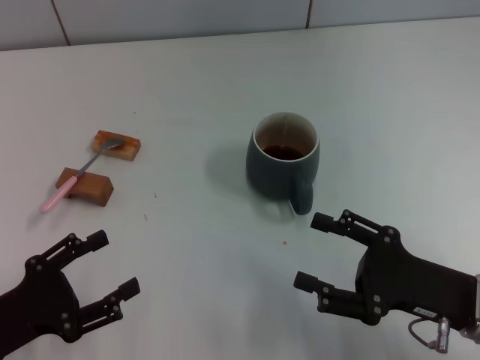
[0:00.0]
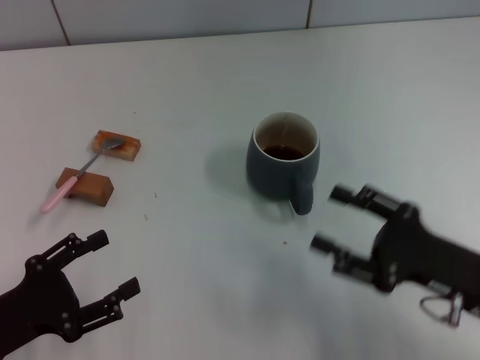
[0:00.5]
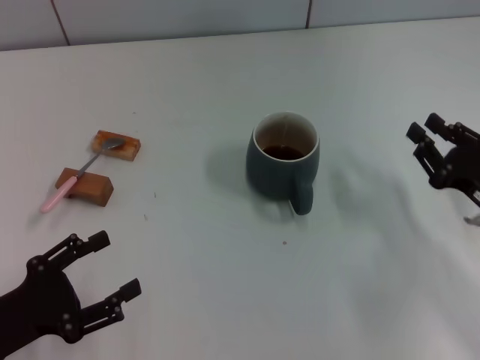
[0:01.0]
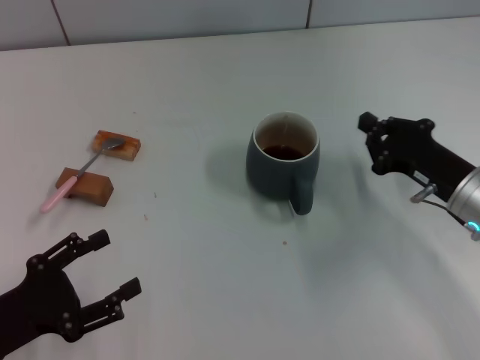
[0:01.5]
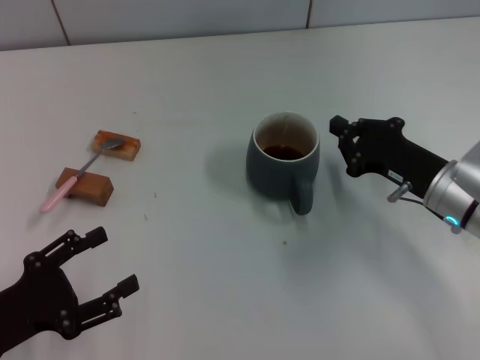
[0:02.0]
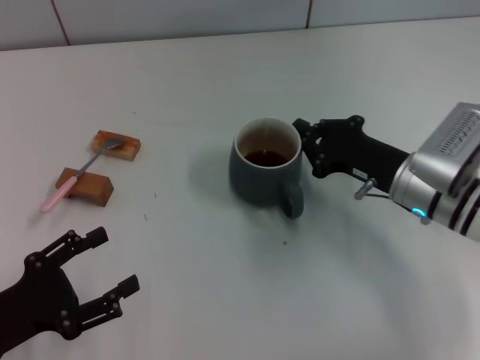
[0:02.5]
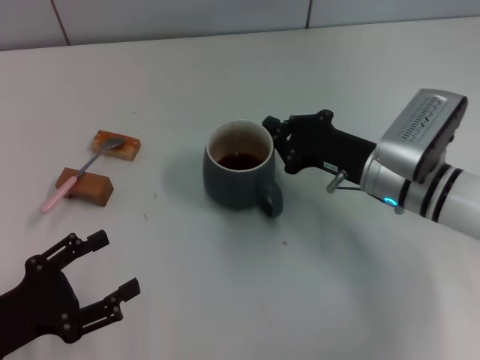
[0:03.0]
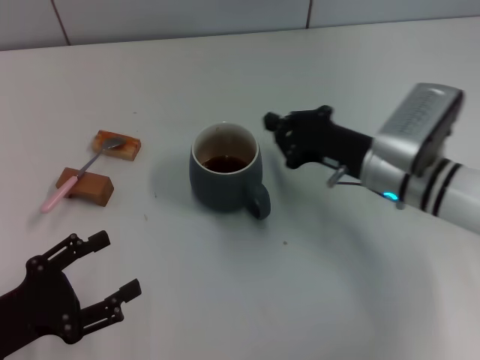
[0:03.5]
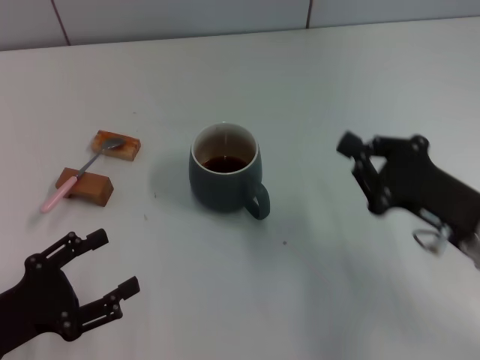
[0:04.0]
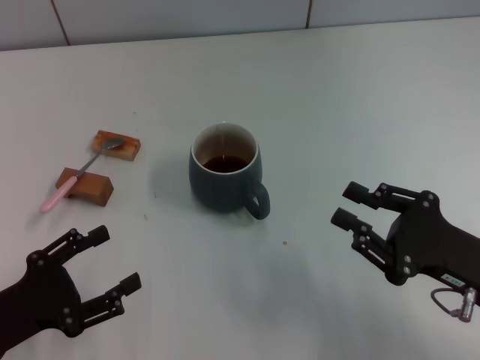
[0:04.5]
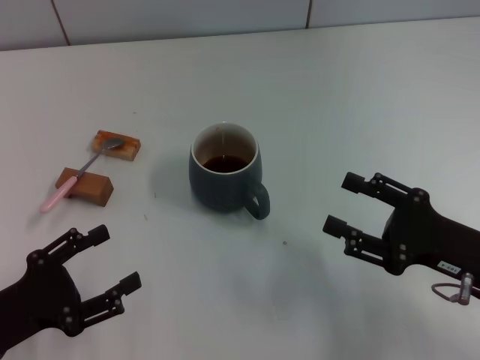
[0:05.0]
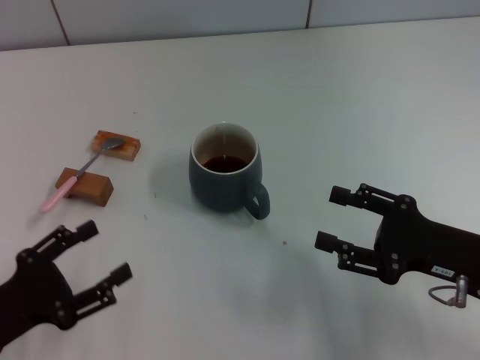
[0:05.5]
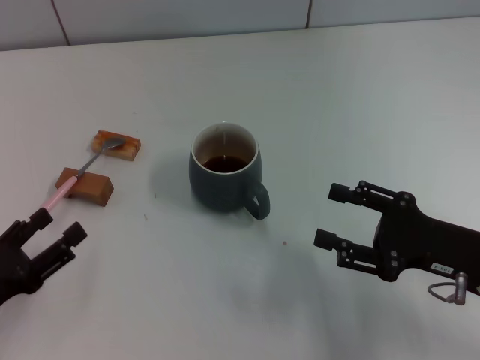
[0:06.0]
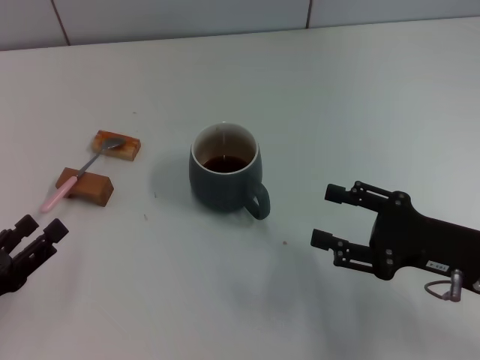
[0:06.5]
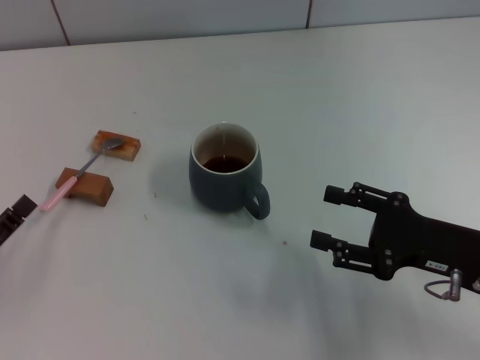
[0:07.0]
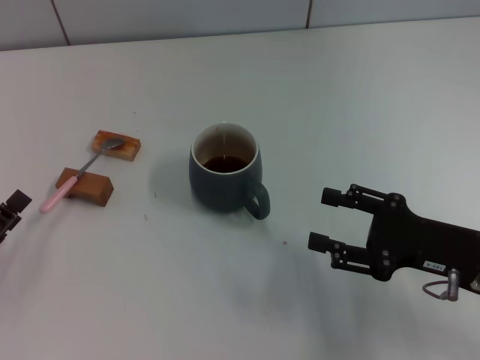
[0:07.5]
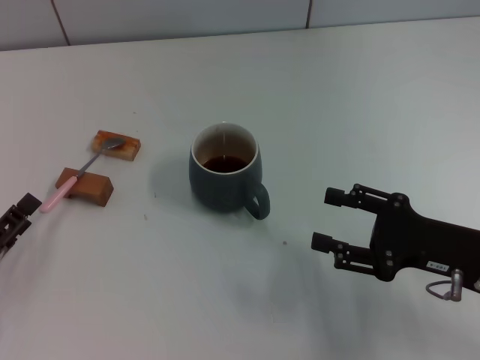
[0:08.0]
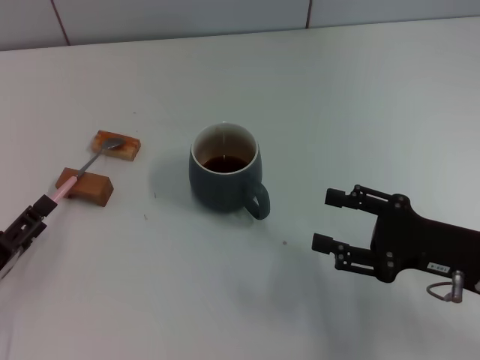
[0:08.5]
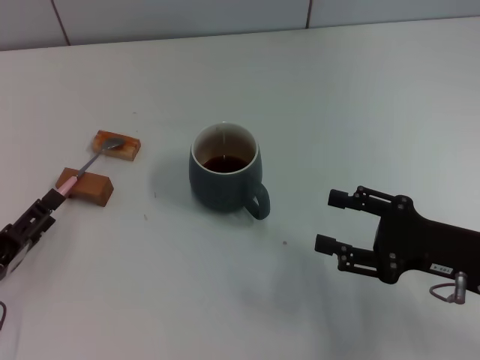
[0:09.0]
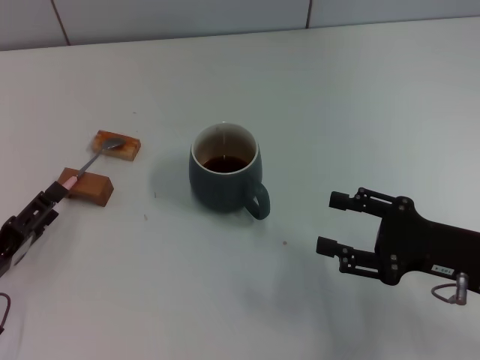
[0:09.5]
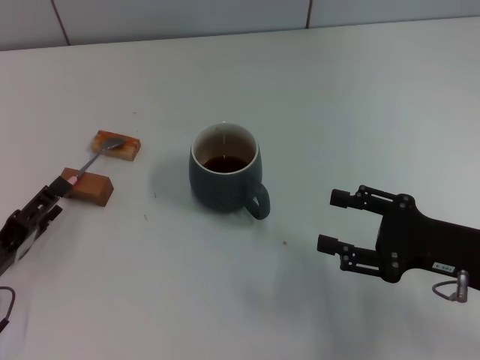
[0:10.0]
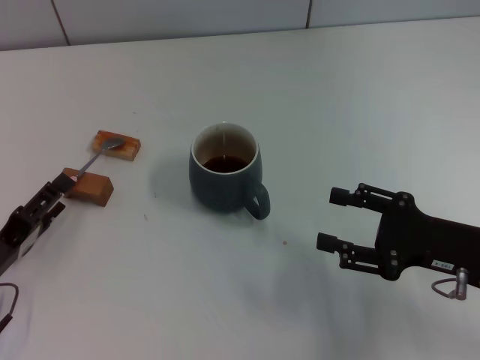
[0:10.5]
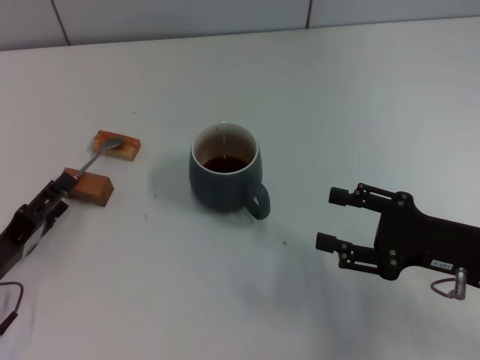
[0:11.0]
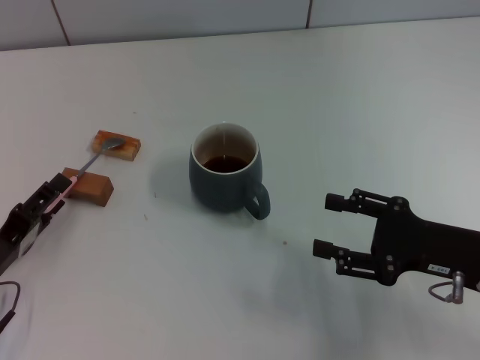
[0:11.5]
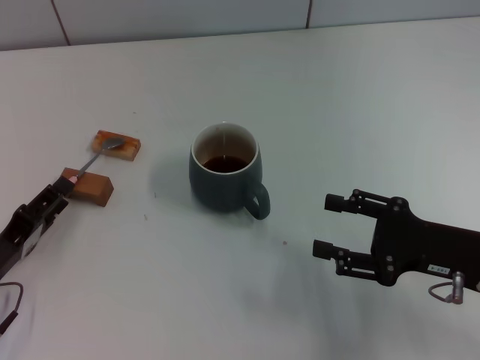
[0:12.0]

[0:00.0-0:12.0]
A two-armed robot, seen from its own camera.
Task of the whole recording: Move the grey cup to the center, lift the pink spoon, stir it three times in the cup, and put the spoon into the cup.
Step, 0:00.0 to 0:03.5: Move the cup with coffee to the center of view with the right gripper.
0:00.0 to 0:02.0: The right gripper heads forward, covering some 10 cm, and closes up.
0:02.0 to 0:04.0: The right gripper is displaced backward by some 5 cm.
0:04.0 to 0:06.0: The right gripper opens up.
0:08.0 to 0:10.0: There are only small adjustments of the grippers.
0:10.0 to 0:12.0: The left gripper closes up.

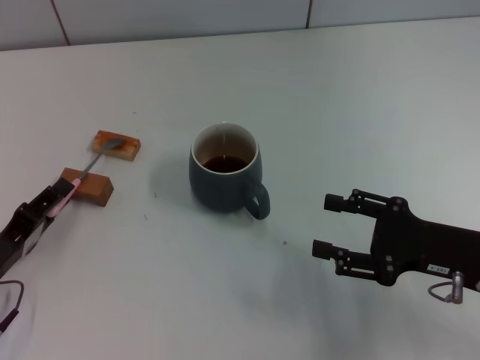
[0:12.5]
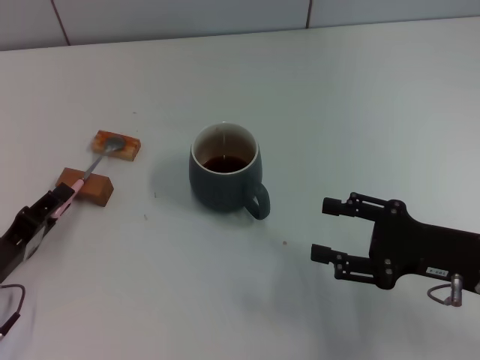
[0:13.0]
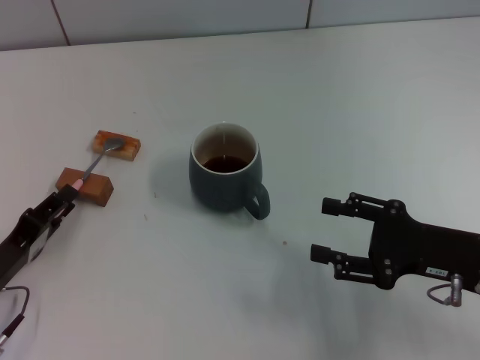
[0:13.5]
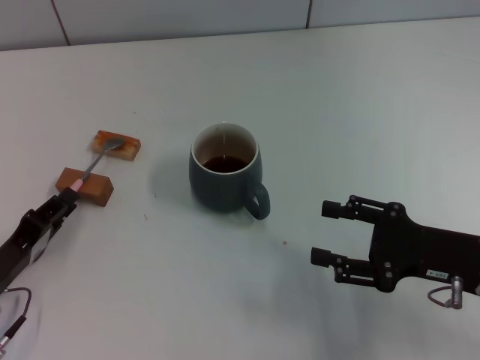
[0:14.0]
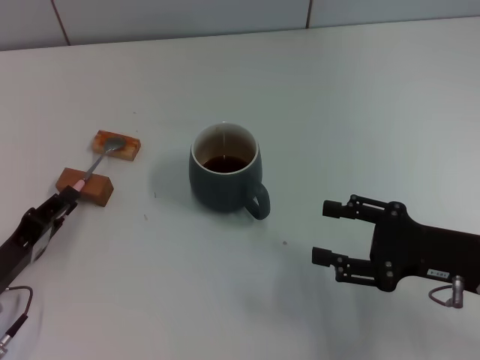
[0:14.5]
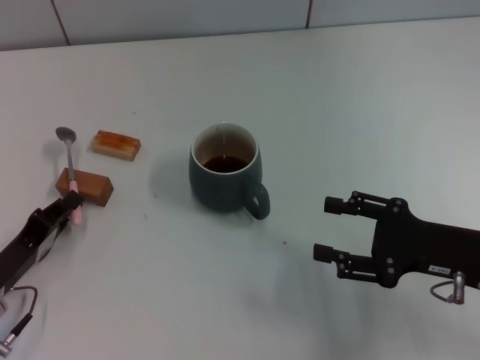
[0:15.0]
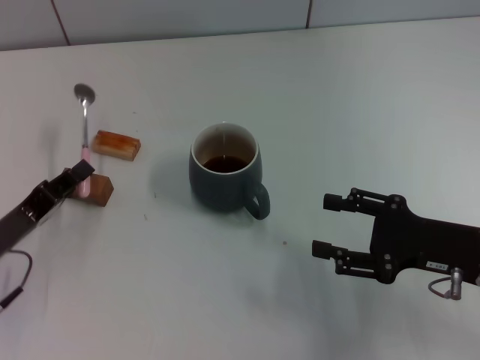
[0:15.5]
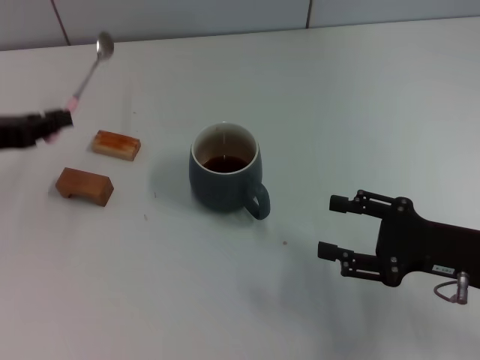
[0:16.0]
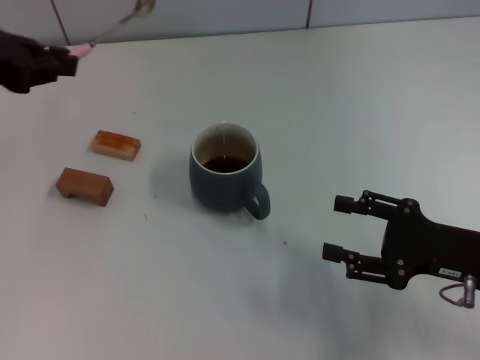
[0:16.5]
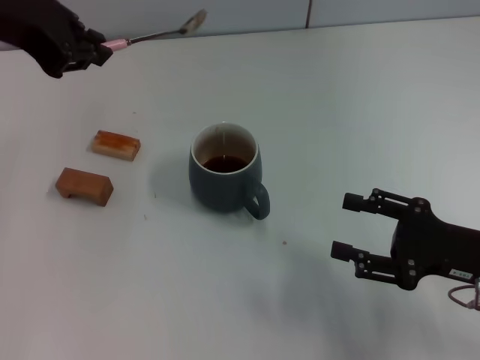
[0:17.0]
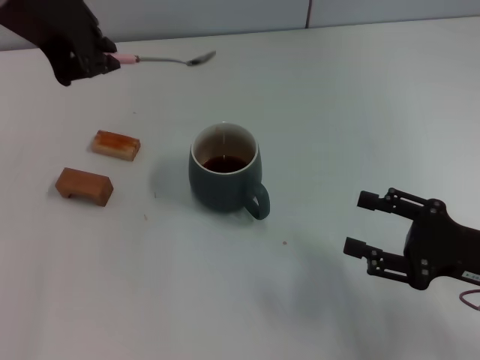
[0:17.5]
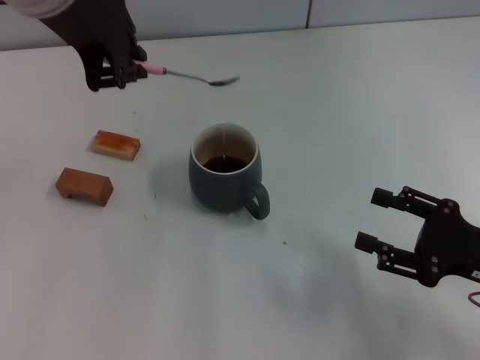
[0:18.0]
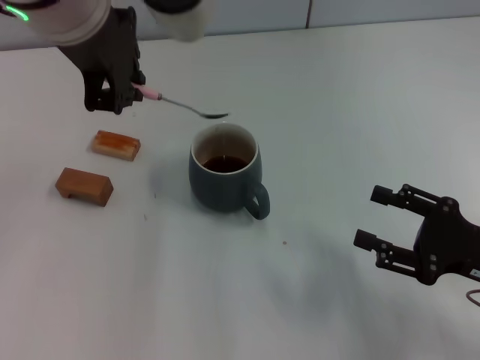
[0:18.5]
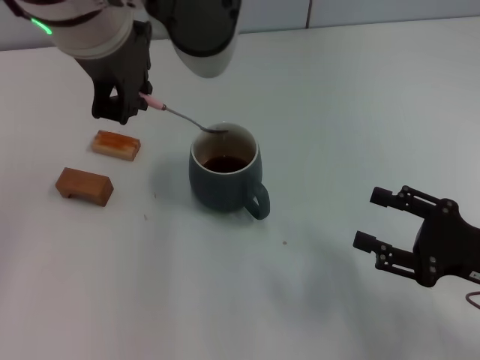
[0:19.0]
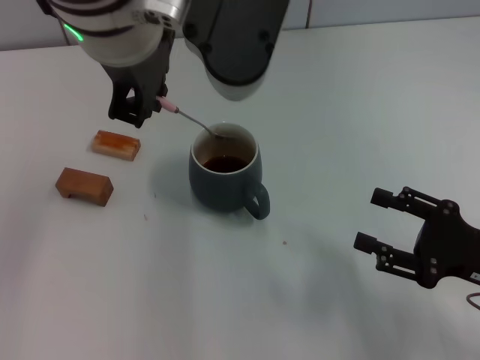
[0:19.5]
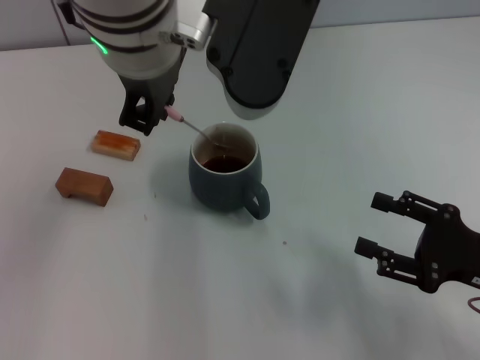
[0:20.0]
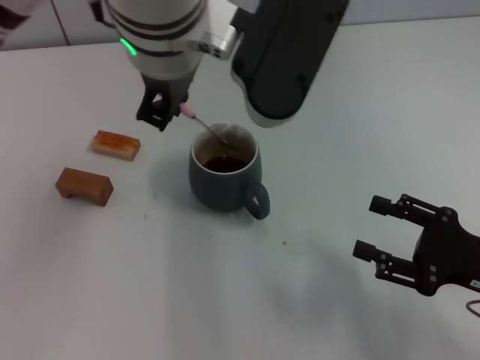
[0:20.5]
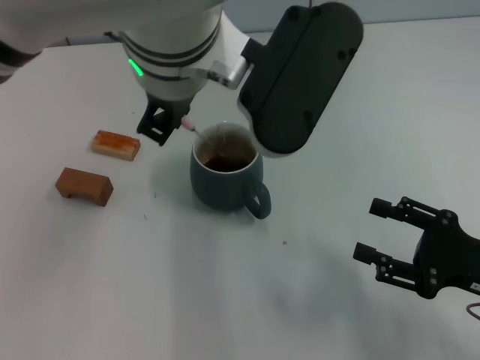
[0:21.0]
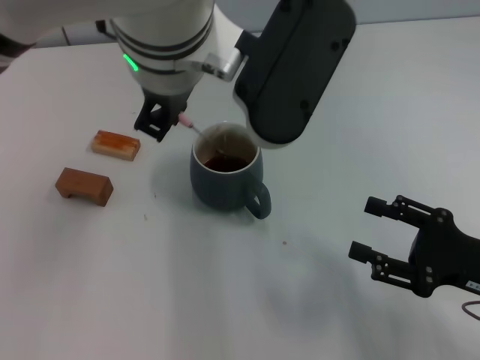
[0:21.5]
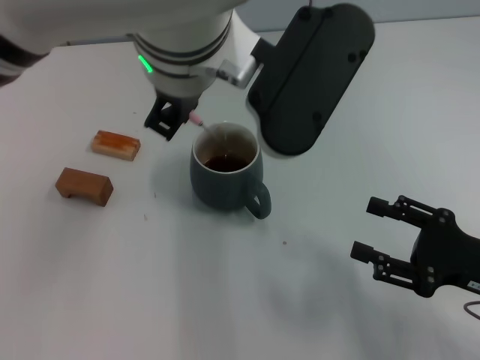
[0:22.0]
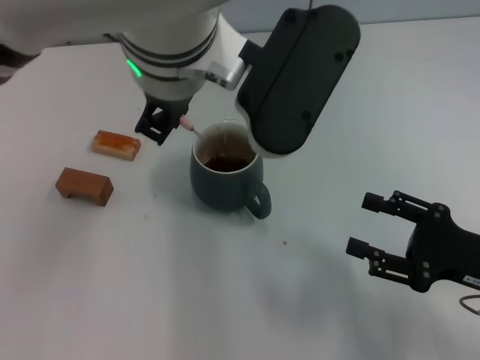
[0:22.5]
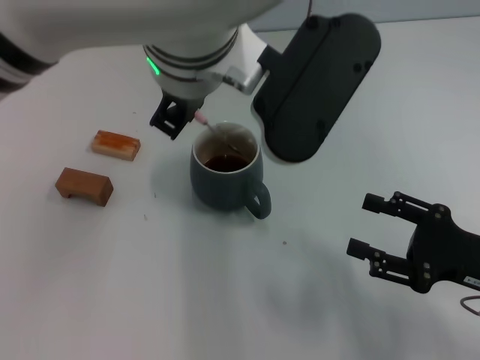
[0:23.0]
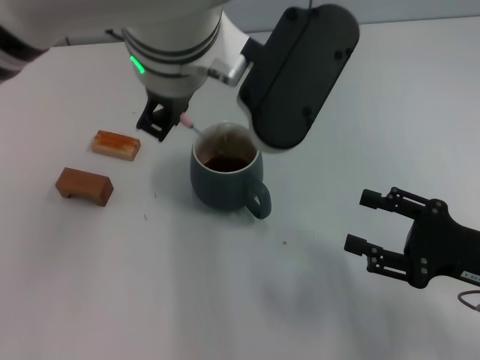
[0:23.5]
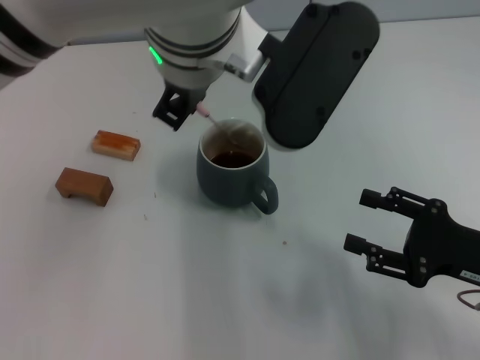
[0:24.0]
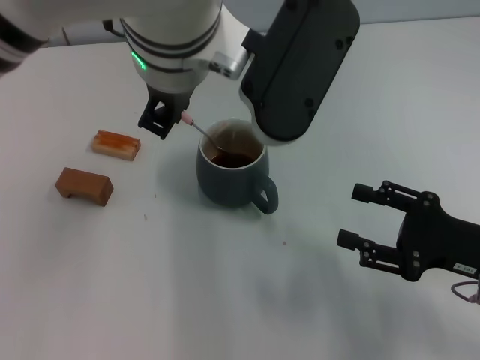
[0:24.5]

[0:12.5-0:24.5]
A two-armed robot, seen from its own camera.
Task of the whole recording: Move the grey cup to the center, lift the pink spoon, stir it three times in the cup, and put the spoon into the cup.
Step, 0:12.5 to 0:16.0: Pick up the spoon with the left gripper.
0:12.5 to 0:14.5: The left gripper closes.
0:14.5 to 0:16.5: The left gripper is displaced upward and forward by approximately 30 cm.
0:16.5 to 0:18.5: The left gripper moves to the right, some 20 cm.
0:18.5 to 0:20.5: The left gripper moves to the right, approximately 5 cm.
0:20.5 to 0:24.5: There are only small adjustments of the grippers.

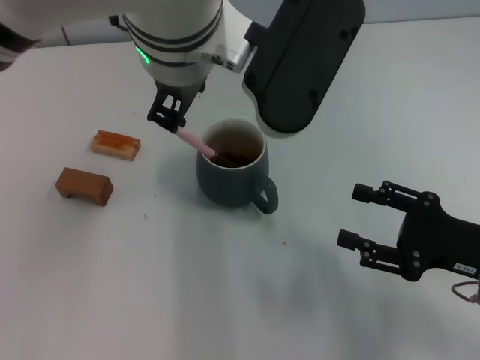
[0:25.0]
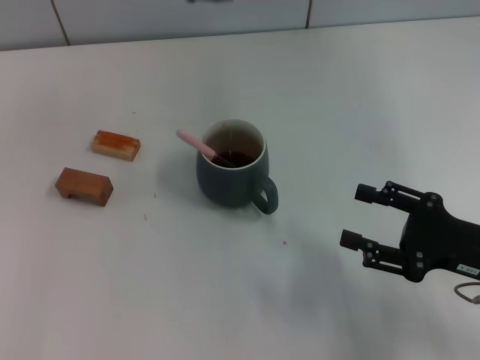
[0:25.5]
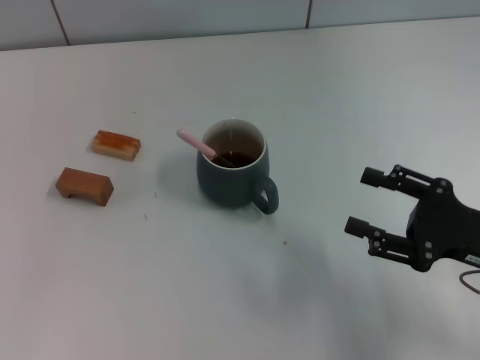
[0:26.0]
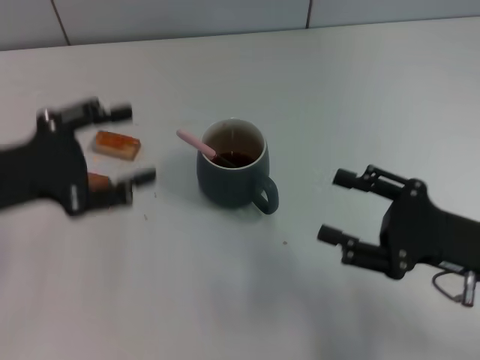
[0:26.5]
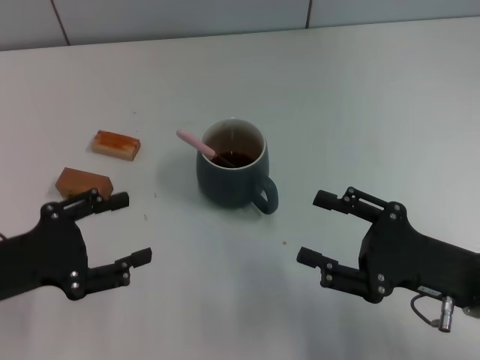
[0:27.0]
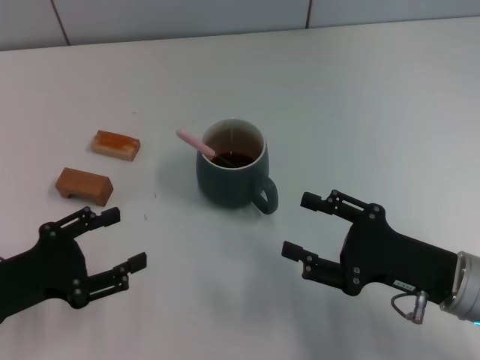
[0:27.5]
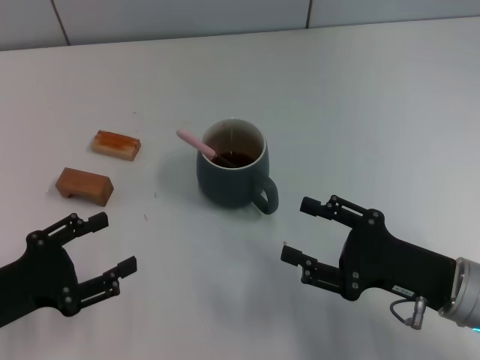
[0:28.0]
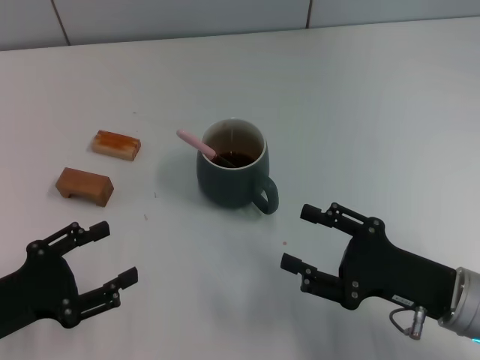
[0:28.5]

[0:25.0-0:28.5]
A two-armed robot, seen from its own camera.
Task of the whole recording: Move the grey cup to the center, lift the pink spoon, stir it three times in the cup, and put the spoon into the cup.
0:25.0 to 0:27.0: The left gripper shifts about 35 cm to the left, downward and backward, and opens up.
0:27.0 to 0:28.5: The left gripper changes place by about 5 cm.
